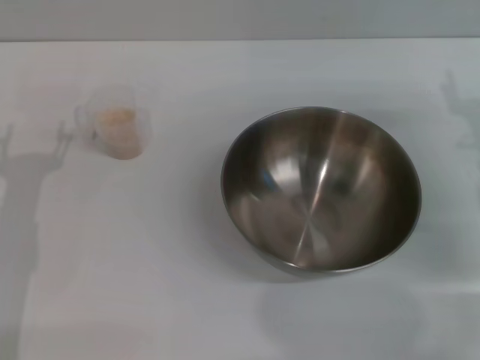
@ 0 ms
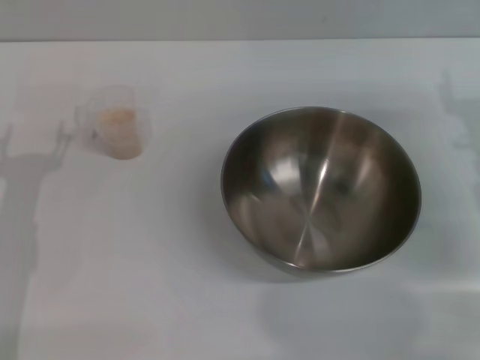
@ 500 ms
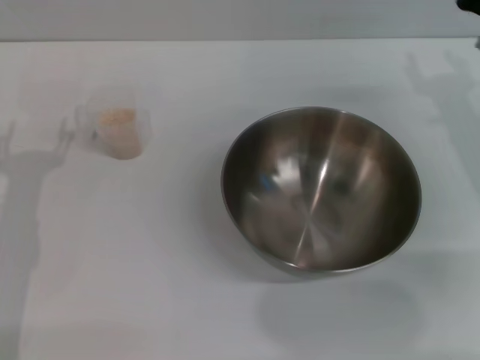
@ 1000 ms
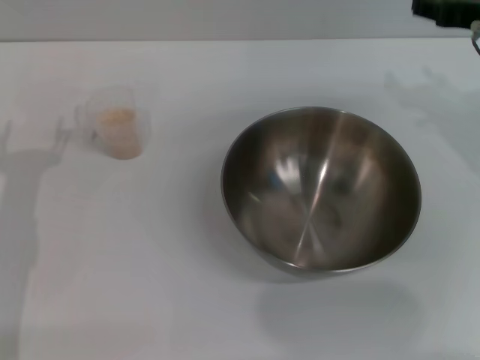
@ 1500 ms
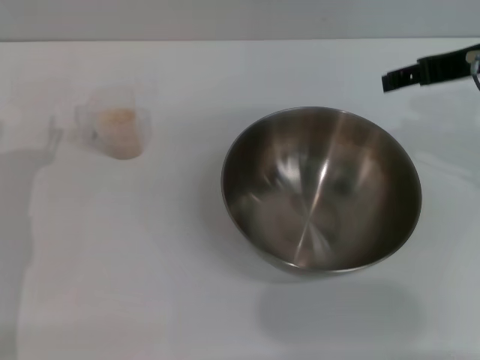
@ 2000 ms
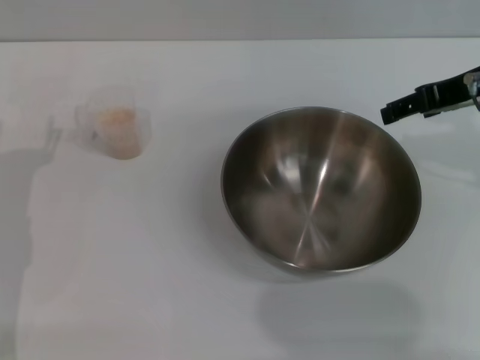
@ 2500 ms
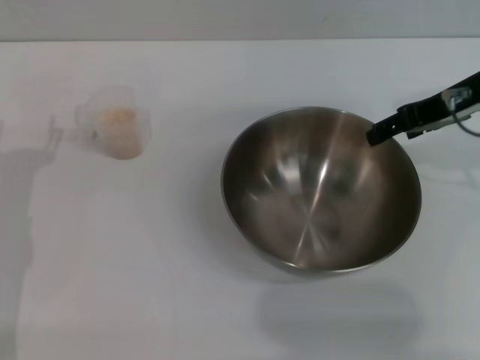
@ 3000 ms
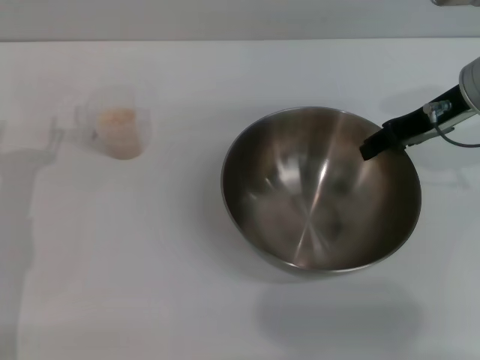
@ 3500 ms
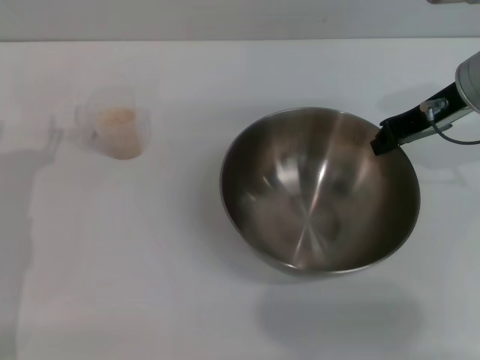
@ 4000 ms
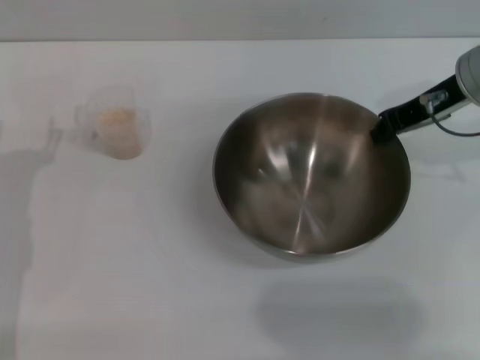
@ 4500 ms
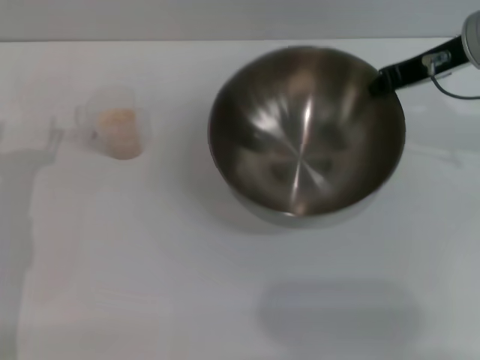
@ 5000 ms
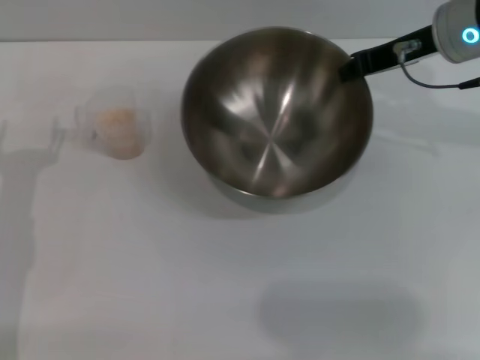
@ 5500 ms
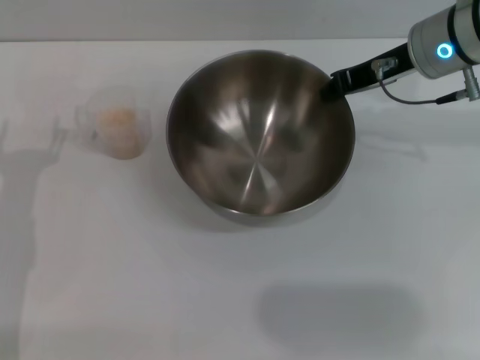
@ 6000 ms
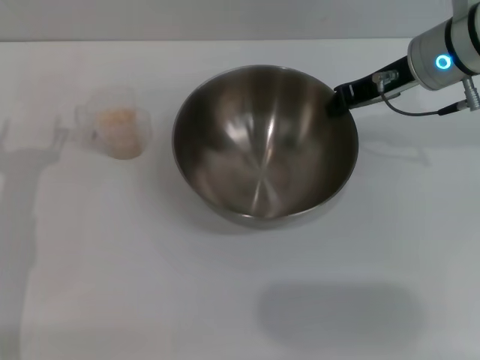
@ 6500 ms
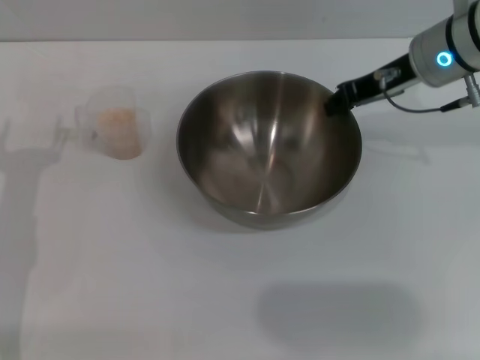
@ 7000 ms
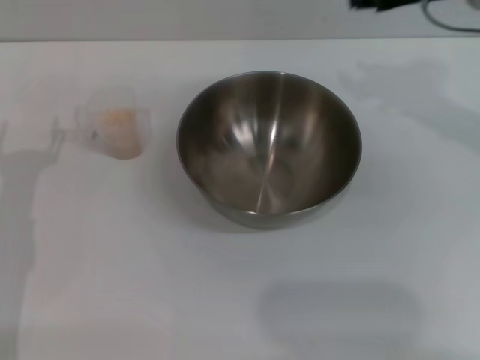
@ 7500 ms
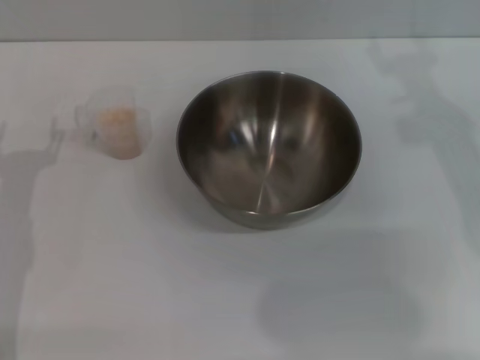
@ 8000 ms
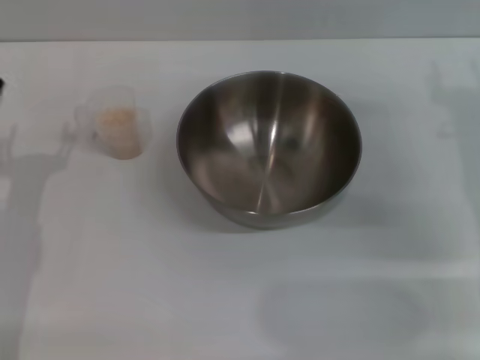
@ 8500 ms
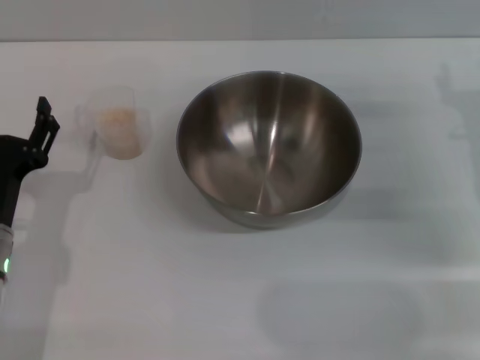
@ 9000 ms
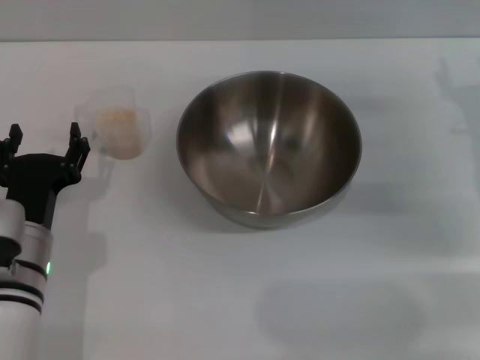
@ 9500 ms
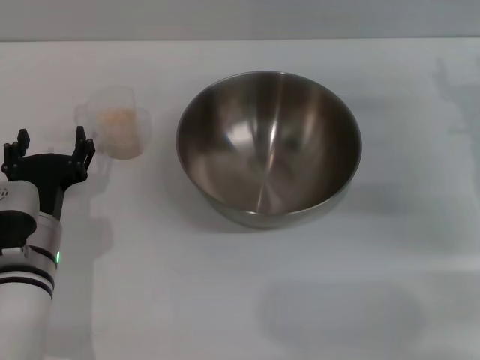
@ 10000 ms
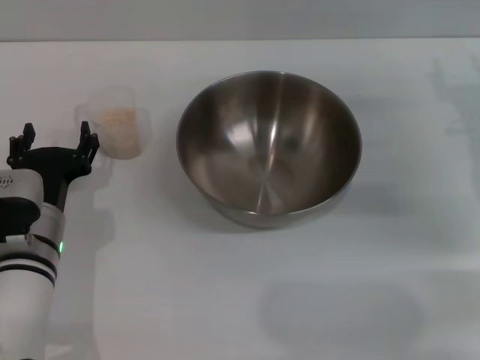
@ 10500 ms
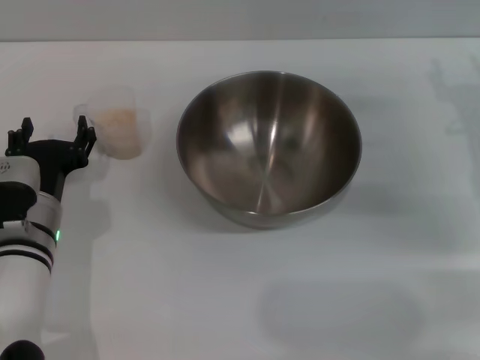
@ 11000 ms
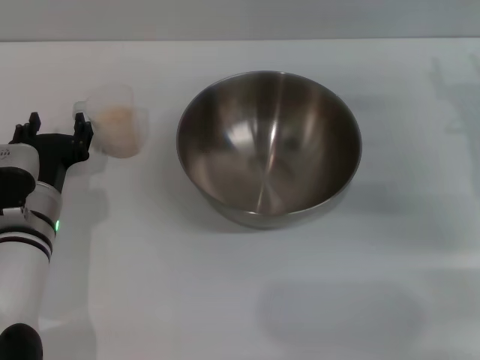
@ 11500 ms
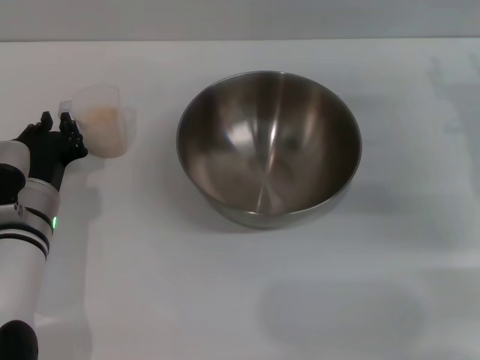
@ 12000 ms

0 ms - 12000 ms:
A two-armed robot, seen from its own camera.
Task of the whole recording: Place the bowl in the middle of the table with one hand and pour the rice from the grain cup into it with the other hand.
Step, 0 ms - 5000 ms: Pick up the bowl with the right gripper.
Step, 5500 ms - 7000 ms: Place the bowl in the center of view with the right gripper.
0 ms - 2000 ms: The right gripper goes roughly 15 cm upward.
2000 ms - 4000 ms: The right gripper heads downward, covering about 5 cm, and closes its fingers.
6000 ms - 8000 ms: The right gripper shifts some 5 cm backward, and opens.
8000 ms - 10000 ms: The right gripper travels downward and to the right by about 10 cm; the left gripper heads to the right, covering approximately 10 cm.
10000 ms - 12000 ms: The left gripper closes.

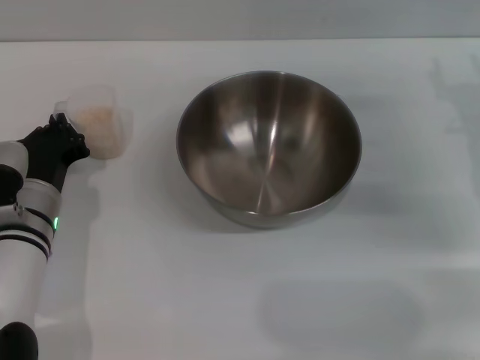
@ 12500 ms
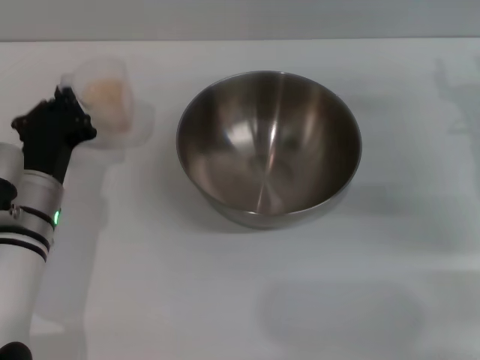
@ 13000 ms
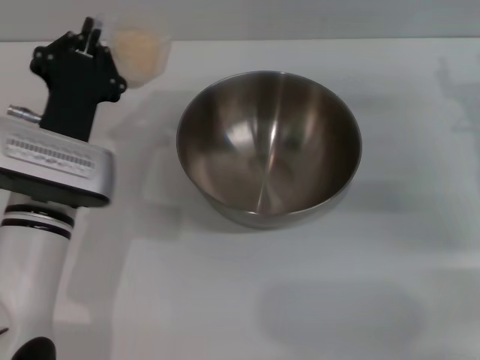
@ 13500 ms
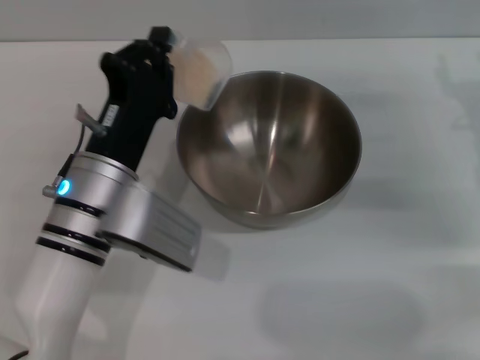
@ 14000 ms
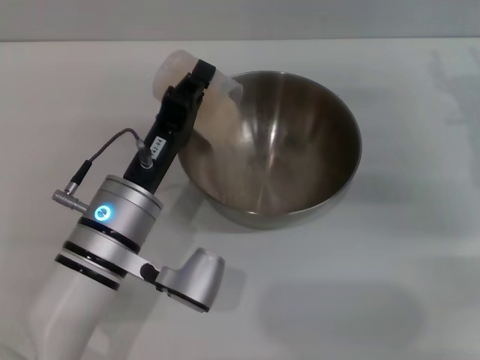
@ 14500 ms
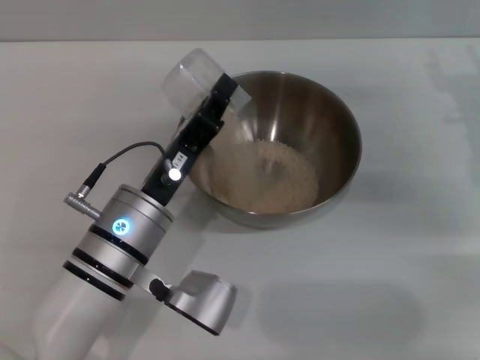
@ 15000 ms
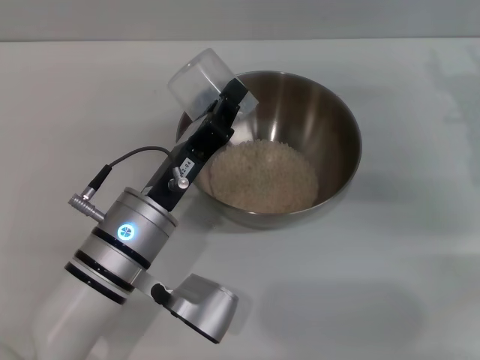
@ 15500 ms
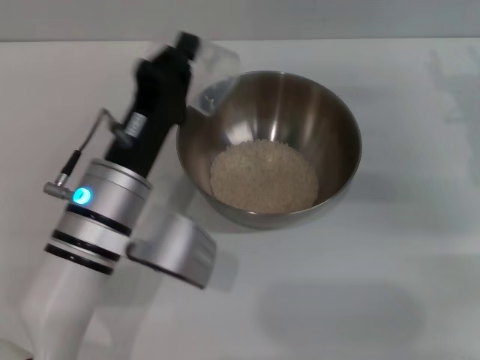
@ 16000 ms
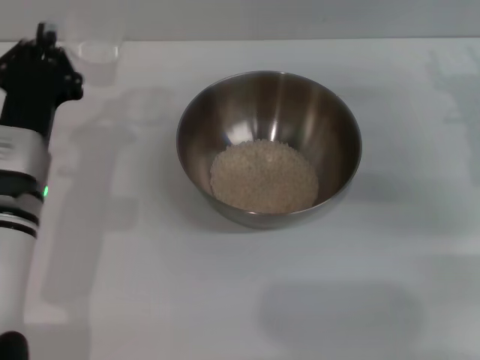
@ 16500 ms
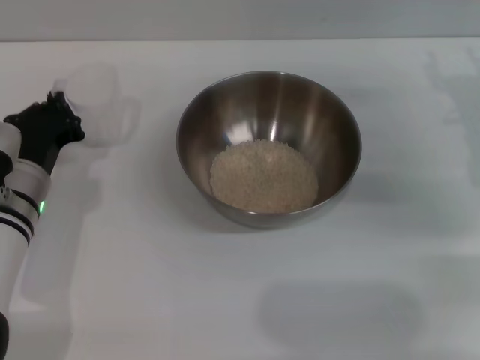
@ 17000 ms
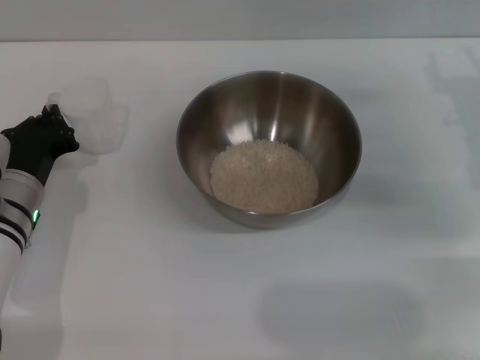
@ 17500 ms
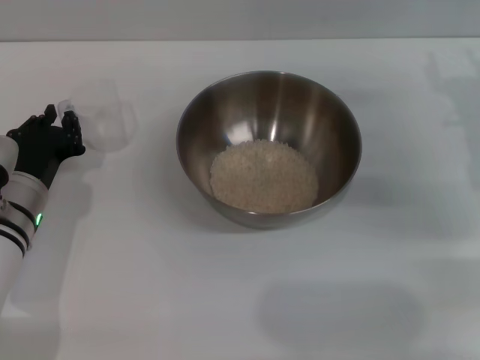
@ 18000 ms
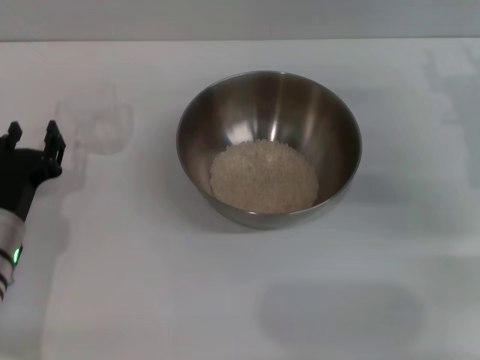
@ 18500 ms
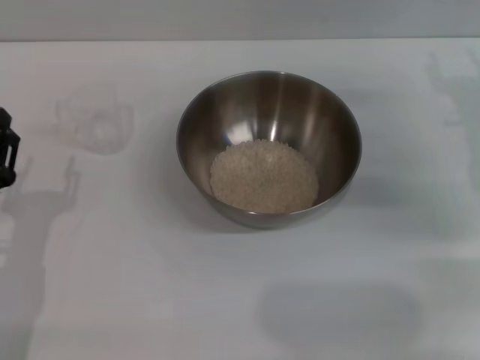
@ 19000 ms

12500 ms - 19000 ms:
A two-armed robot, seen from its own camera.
Task of the whole recording: Place the bowl in the middle of the table with one hand and pour the rice from the grain cup into it with the other hand.
Step, 13500 ms - 15000 ms: Pour the rice from the cup into the bowl with the left gripper.
Step, 15500 ms - 17000 ms: Place the cup on the table with the left gripper.
12500 ms - 14500 ms: The left gripper heads to the right and upward, covering approximately 10 cm.
14500 ms - 17000 ms: The left gripper shifts roughly 10 cm to the left and forward.
17000 ms - 19000 ms: The left gripper goes approximately 10 cm backward, and opens.

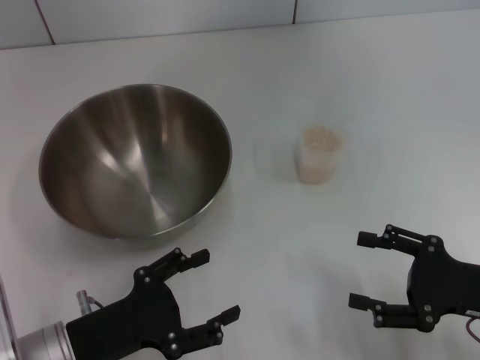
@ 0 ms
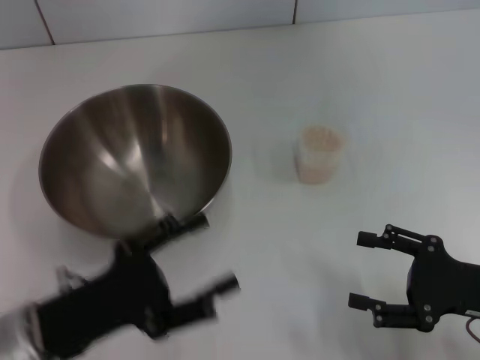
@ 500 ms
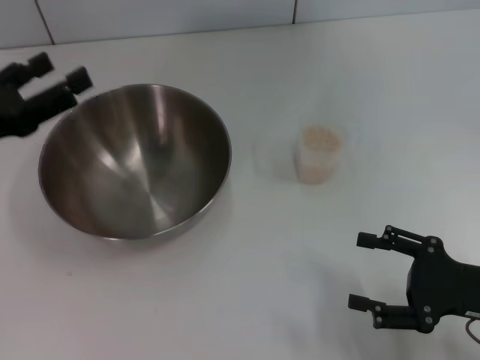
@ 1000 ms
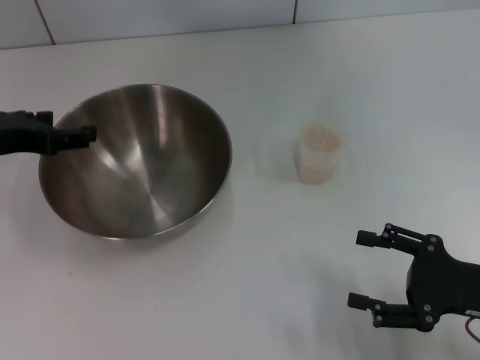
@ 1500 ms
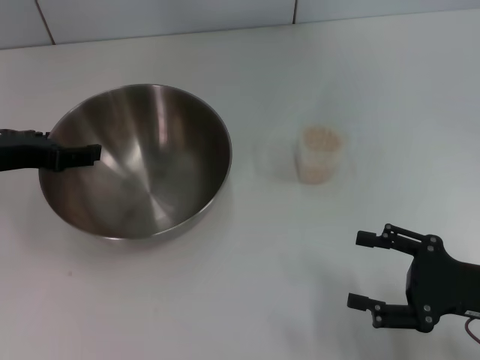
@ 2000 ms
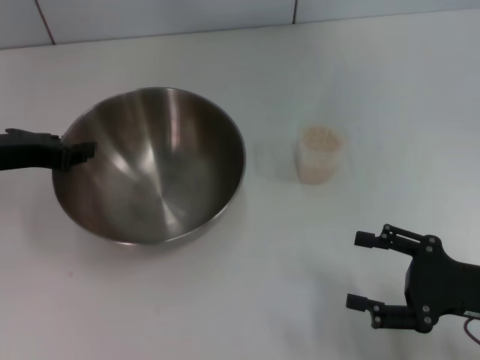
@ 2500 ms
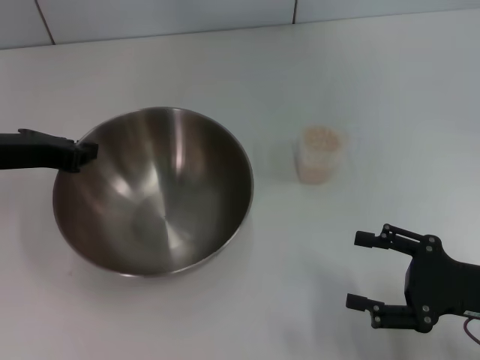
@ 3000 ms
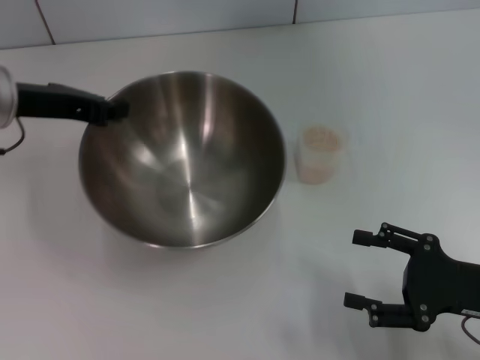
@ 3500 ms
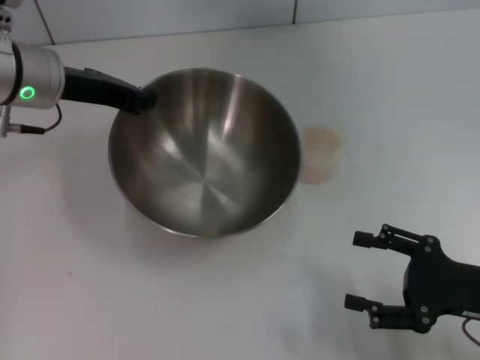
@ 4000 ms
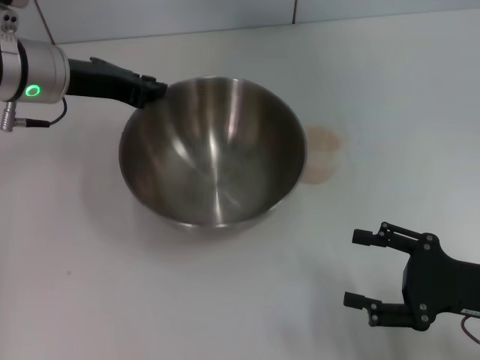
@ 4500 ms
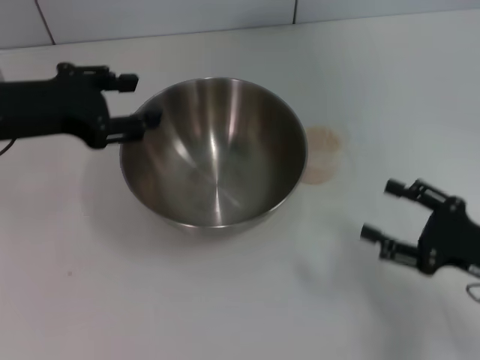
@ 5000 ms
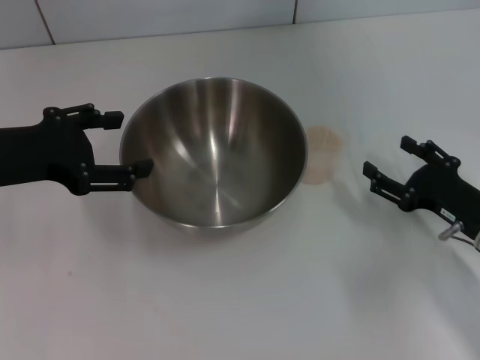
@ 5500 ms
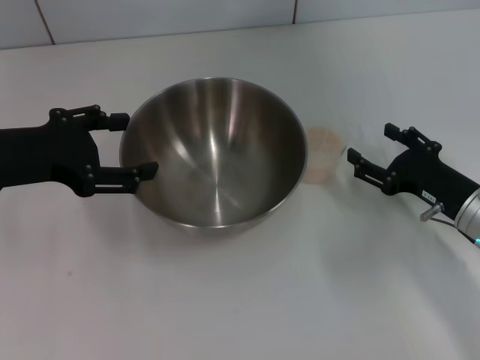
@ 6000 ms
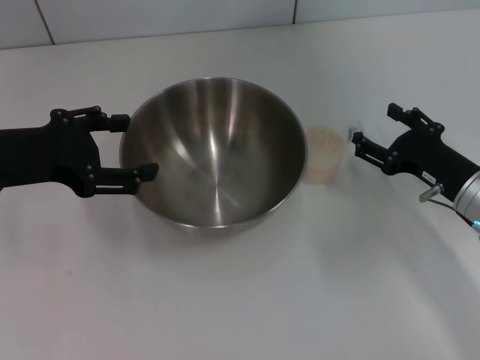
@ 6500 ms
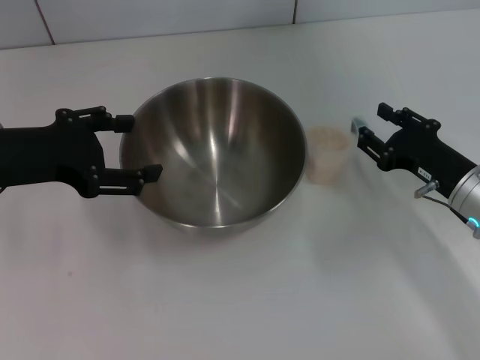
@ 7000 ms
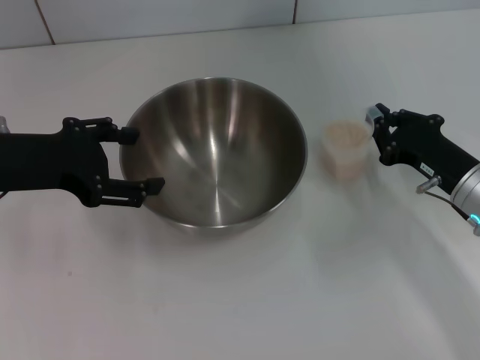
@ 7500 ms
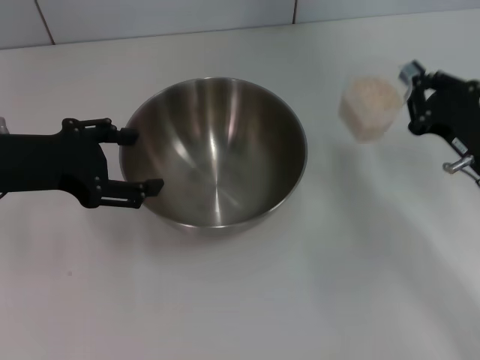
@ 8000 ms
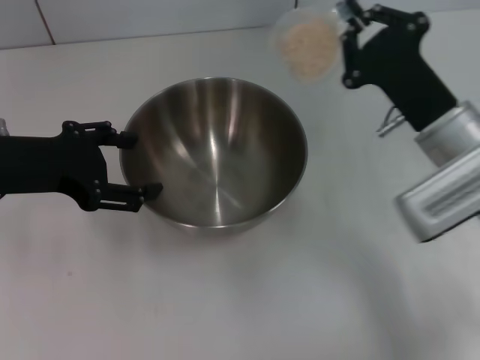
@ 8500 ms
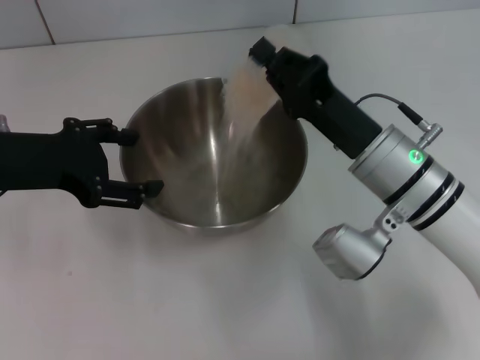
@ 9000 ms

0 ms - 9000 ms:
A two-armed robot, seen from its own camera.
Task of the whole recording: Place the bowl in the middle of the table with one hand and pour the rice from the grain cup into it with the other hand.
Step, 0 ms - 3000 ms: Pick up the bowl with the left gripper.
Step, 3500 ms - 5000 ms: Place the bowl in the center of view with the left gripper.
Step, 5500 ms - 8000 ms: Pick up the cup with rice in it with the right gripper.
0 ms - 2000 ms: The left gripper is displaced forward and upward by roughly 20 cm.
2000 ms - 4500 ms: The left gripper travels to the right and forward by approximately 10 cm, and closes.
4500 ms - 7000 ms: The left gripper shifts roughly 10 cm backward and to the left, and opens up. Meanwhile the right gripper is displaced forward by some 10 cm.
7000 ms - 9000 ms: The right gripper moves to the left and upward, some 15 cm, and closes its fingers.
